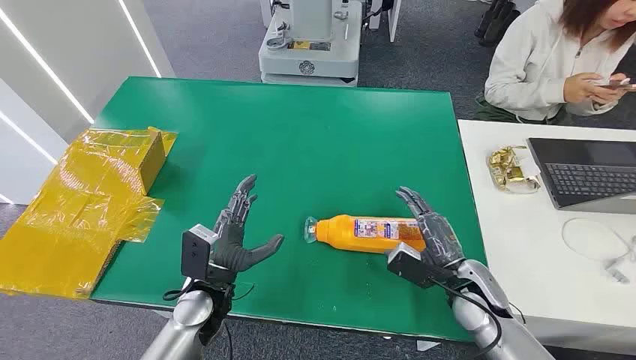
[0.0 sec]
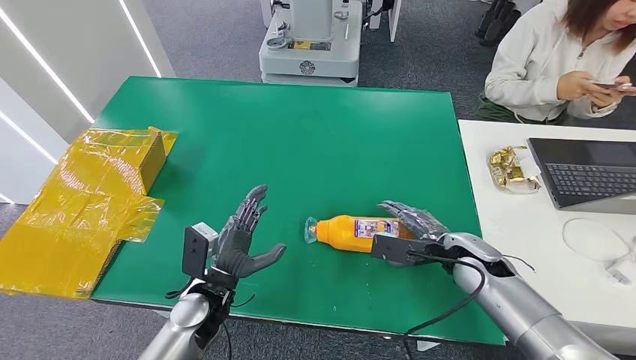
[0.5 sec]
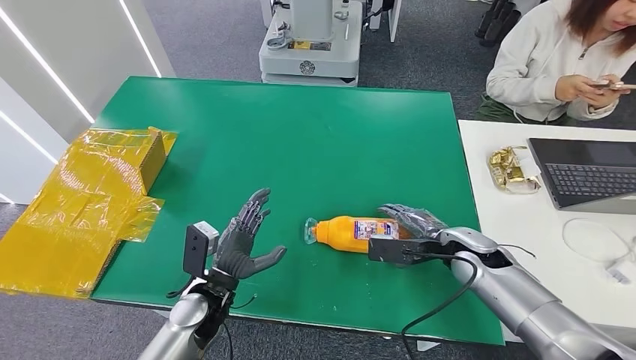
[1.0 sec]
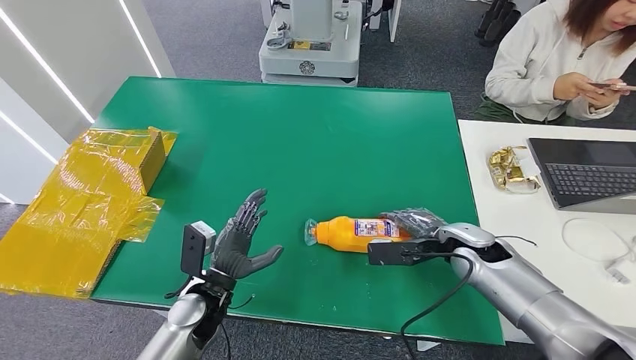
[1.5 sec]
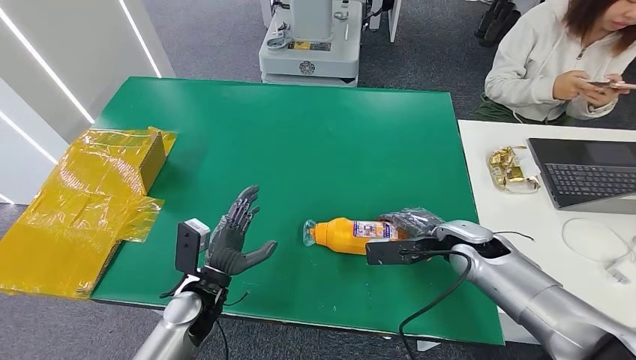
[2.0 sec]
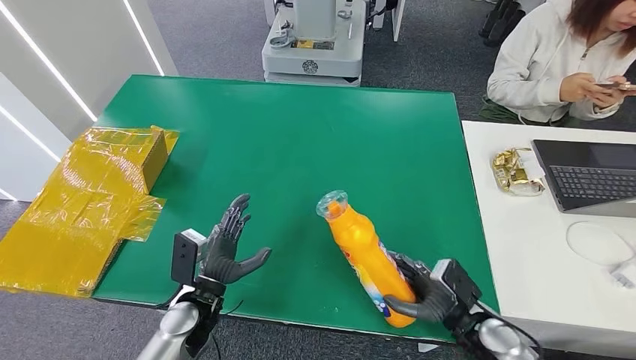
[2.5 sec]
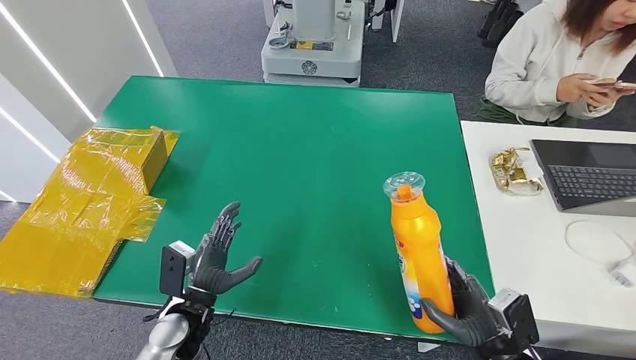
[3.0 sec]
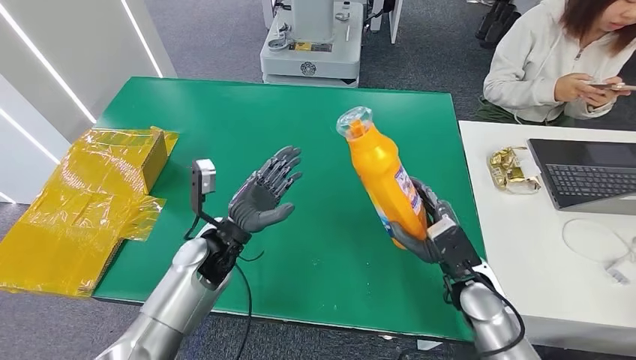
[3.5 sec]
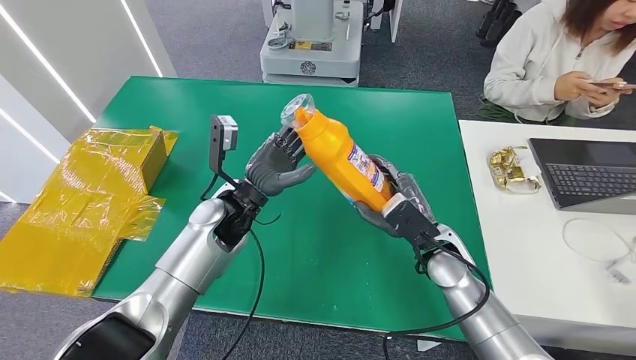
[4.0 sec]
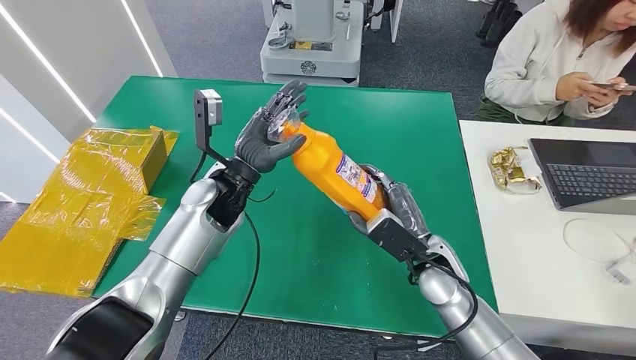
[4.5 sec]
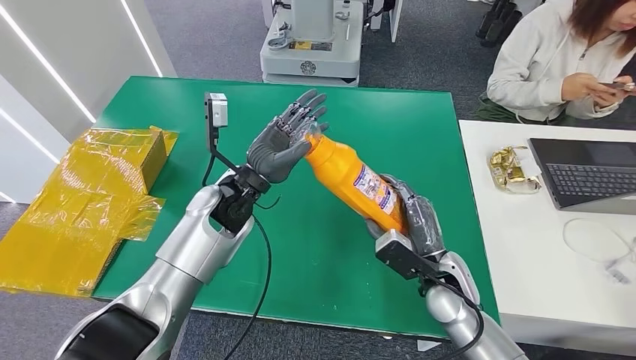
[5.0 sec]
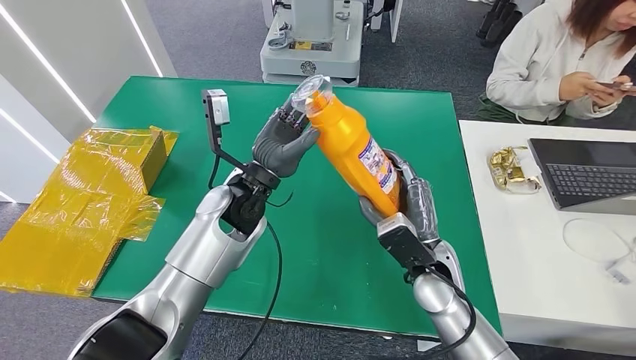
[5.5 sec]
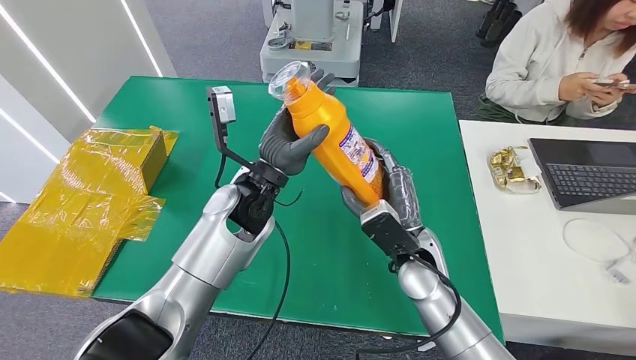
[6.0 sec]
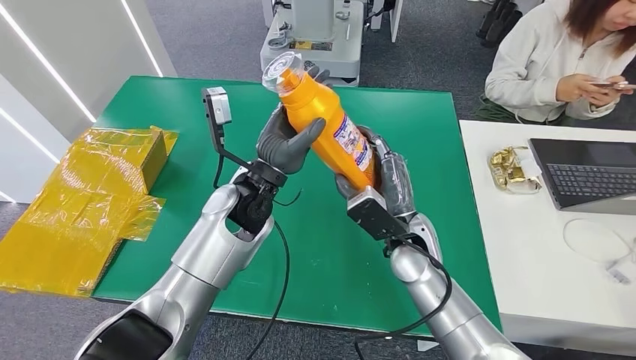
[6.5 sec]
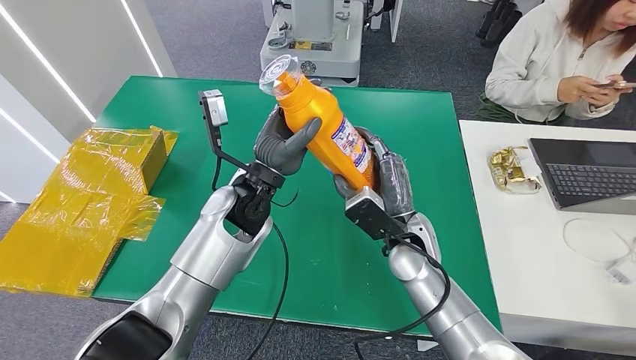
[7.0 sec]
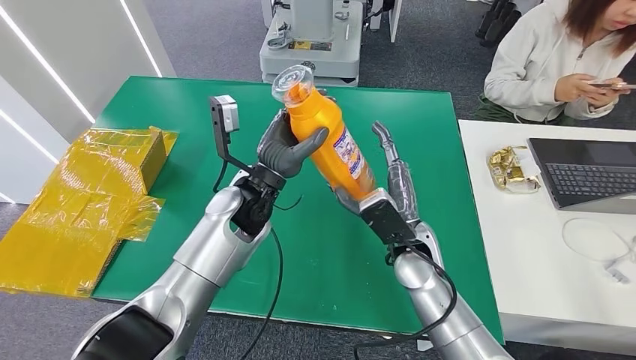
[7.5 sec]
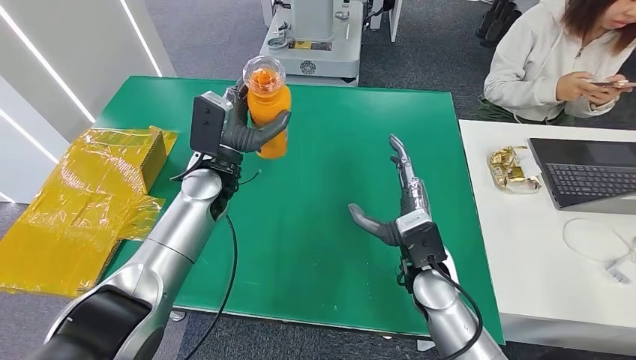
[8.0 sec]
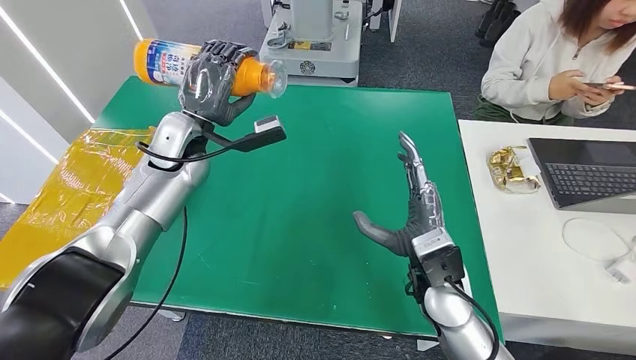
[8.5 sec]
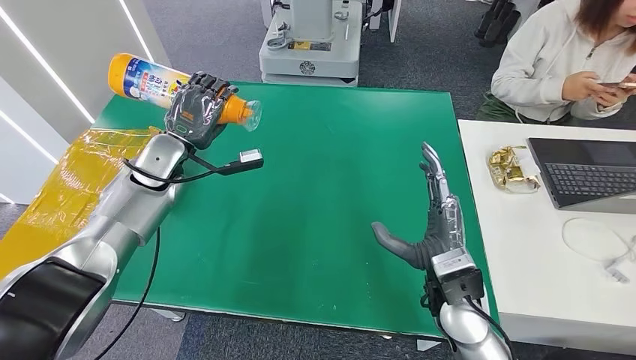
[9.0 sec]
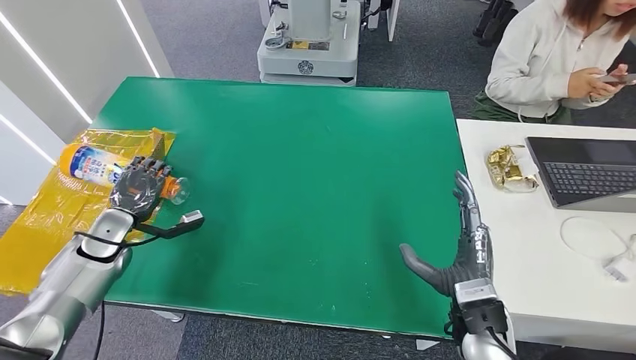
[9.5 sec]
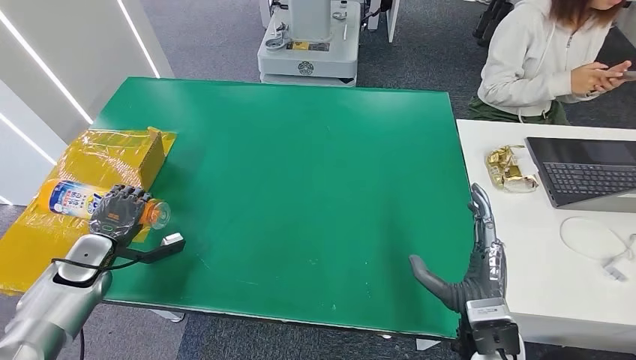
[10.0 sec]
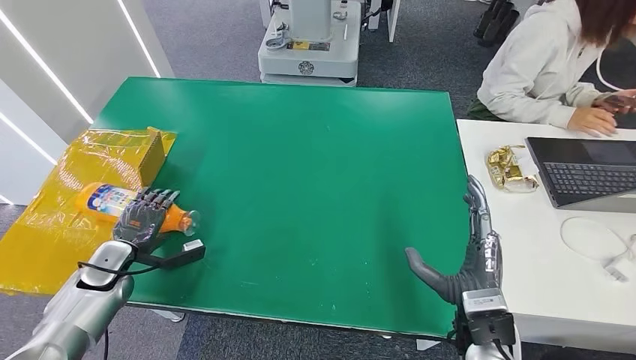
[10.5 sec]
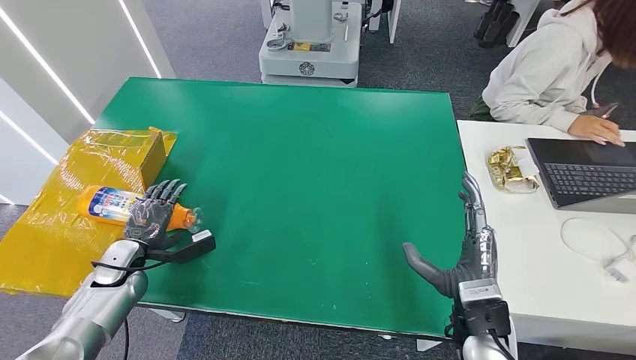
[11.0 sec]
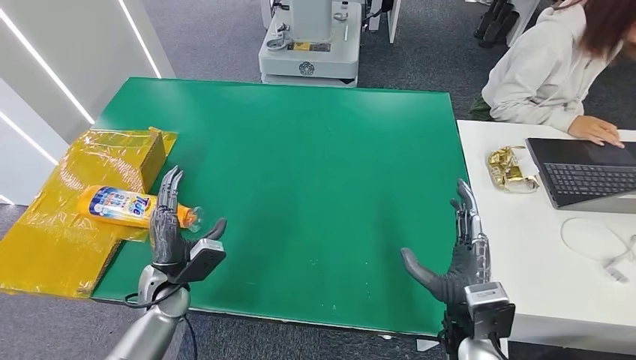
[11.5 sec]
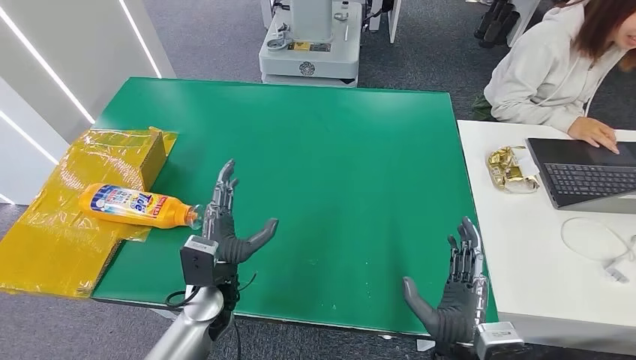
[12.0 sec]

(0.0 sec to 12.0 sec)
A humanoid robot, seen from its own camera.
Step, 0.0 sec - 5.0 sec: Pick up the bottle from the table.
Step, 5.5 sec - 12.0 sec: Turn the bottle to the front side.
4.0 sec - 6.0 sec: The left hand shifts approximately 5 cm upward. The right hand is displaced to the left by roughly 5 cm.
